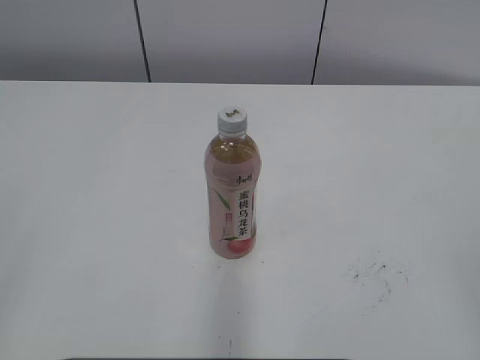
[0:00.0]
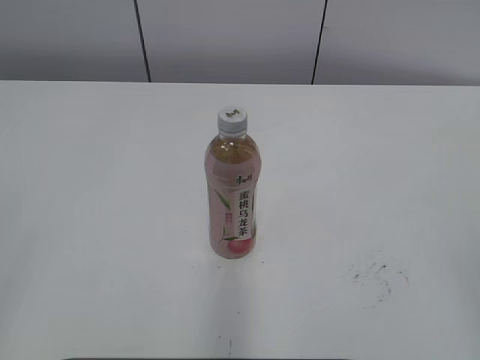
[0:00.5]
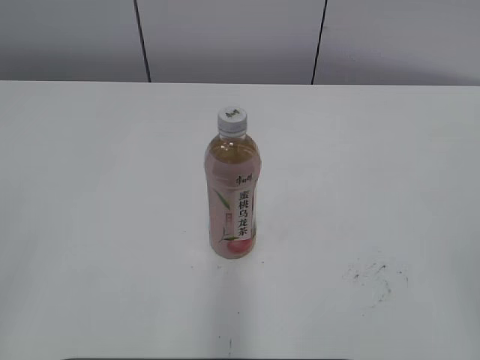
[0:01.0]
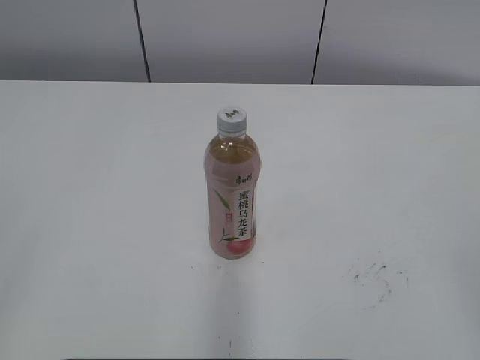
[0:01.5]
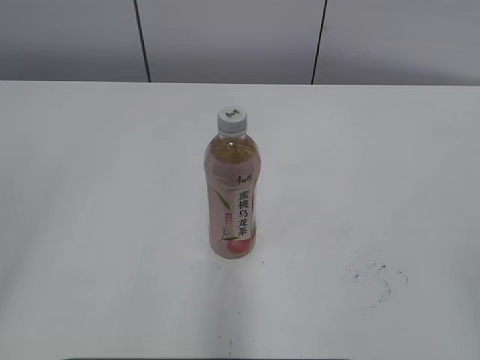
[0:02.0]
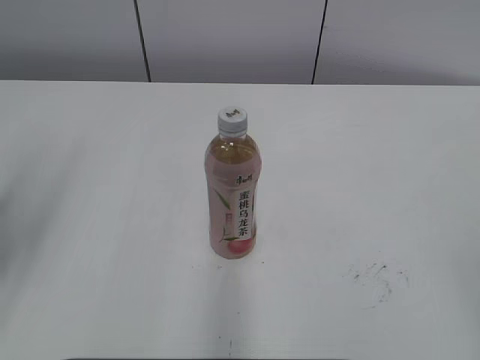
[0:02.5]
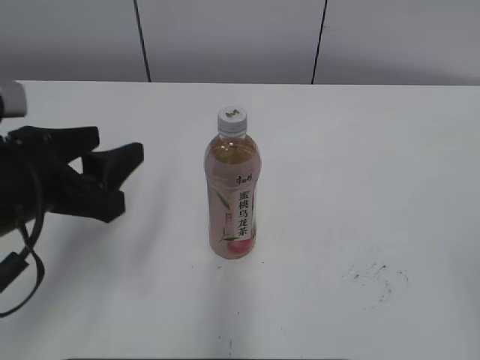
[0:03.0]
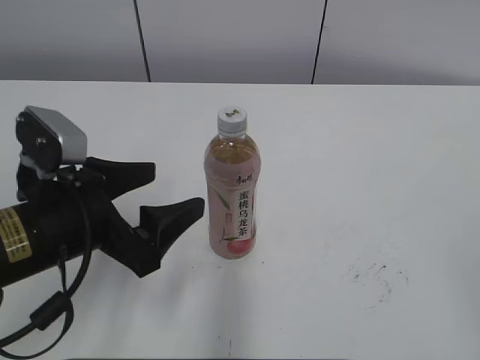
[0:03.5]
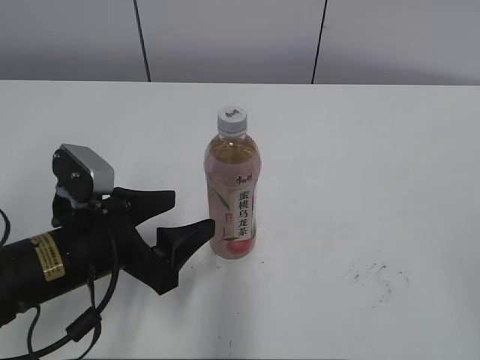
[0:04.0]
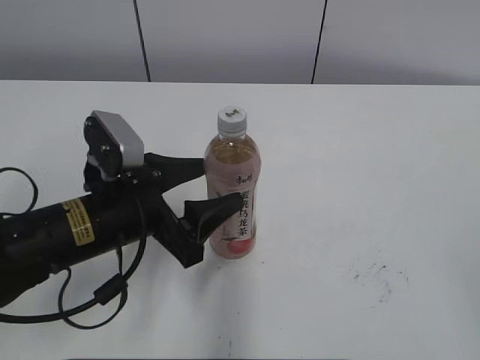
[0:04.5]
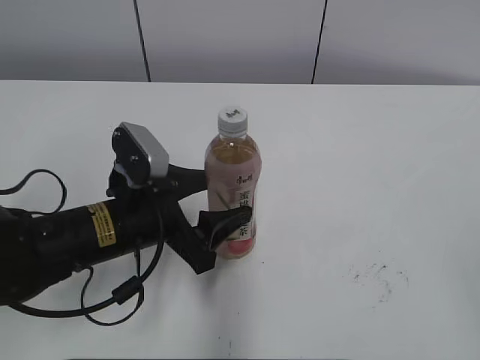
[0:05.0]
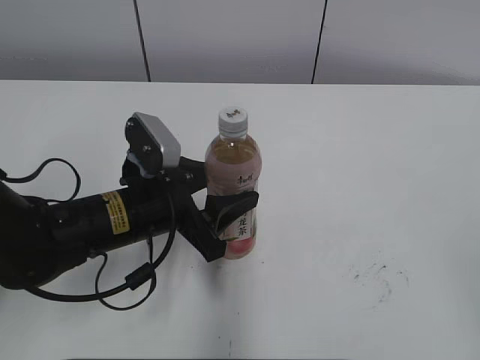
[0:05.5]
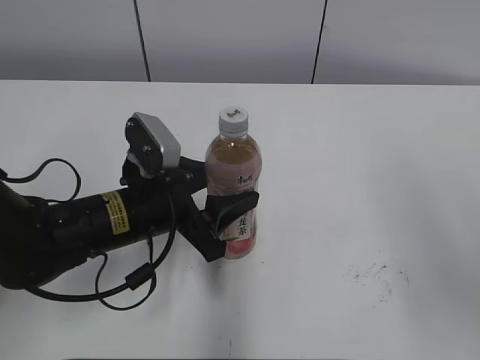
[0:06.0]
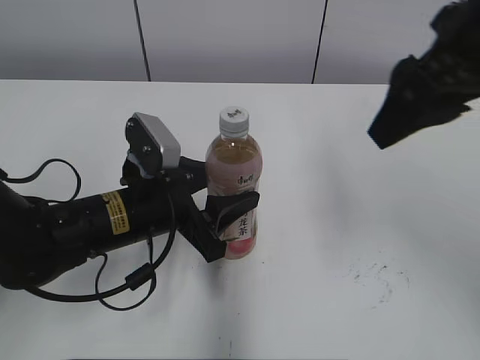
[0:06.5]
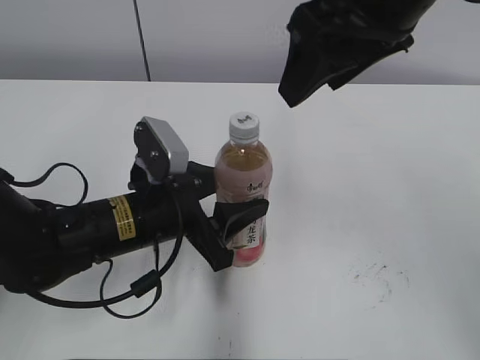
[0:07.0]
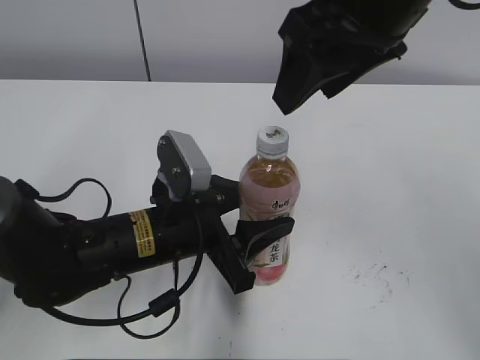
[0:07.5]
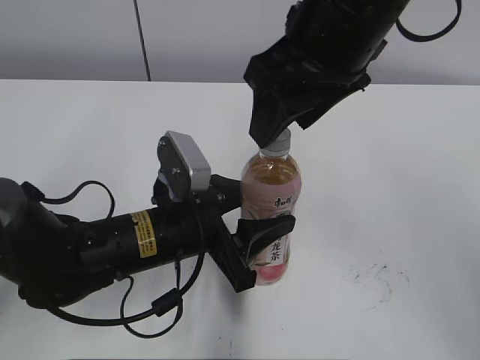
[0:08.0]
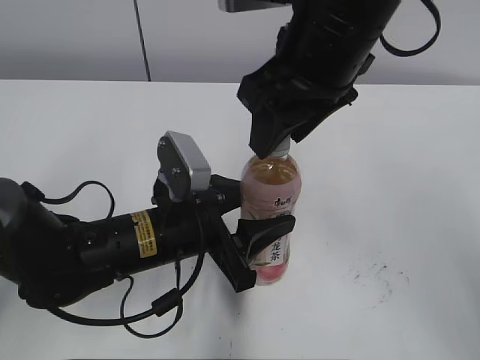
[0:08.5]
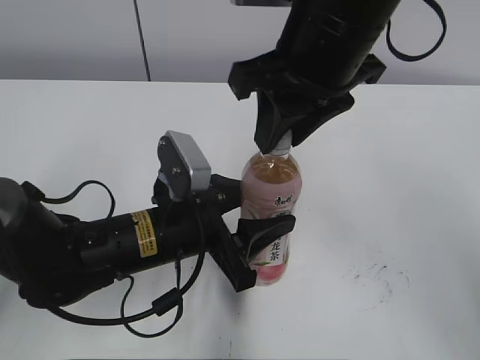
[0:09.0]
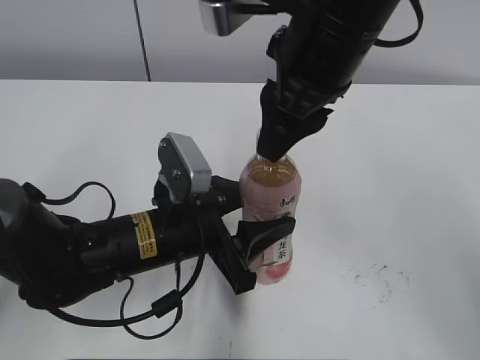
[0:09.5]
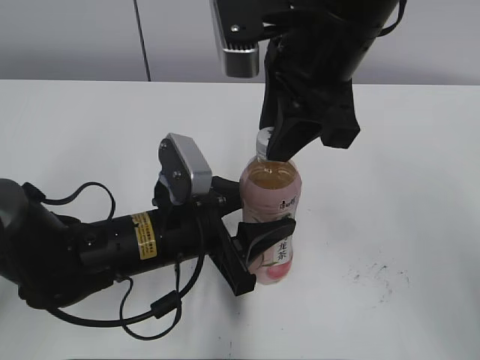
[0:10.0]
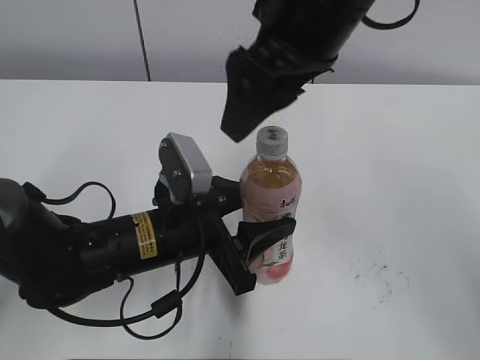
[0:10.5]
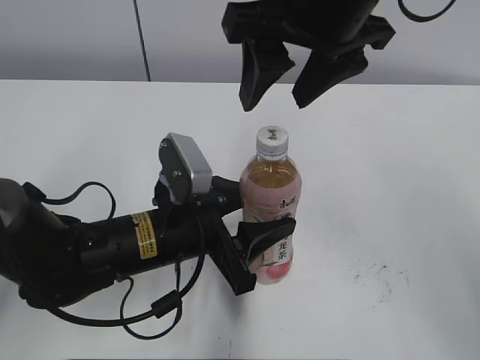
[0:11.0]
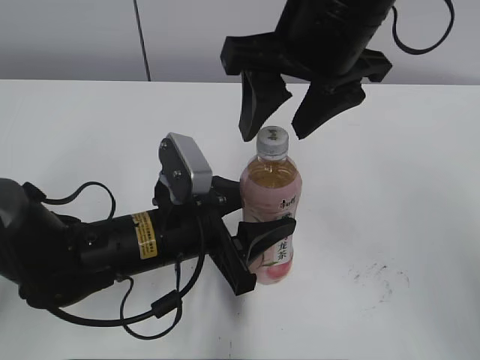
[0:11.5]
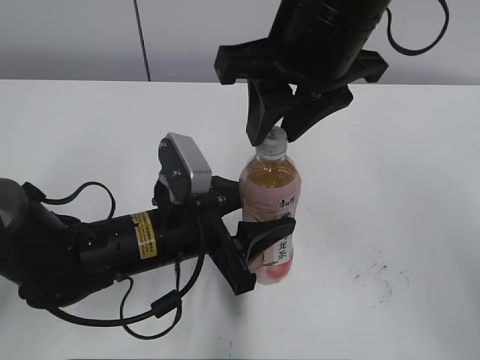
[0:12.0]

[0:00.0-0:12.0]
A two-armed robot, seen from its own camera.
Step, 0.0 to 6.5 s: Grab the Peach Oolong Tea with the left hand.
Step, 7.0 to 7.5 s: Move the Peach Oolong Tea from left to right.
2.0 to 4.0 s: The left gripper heads downward, forward and to the right, covering roughly 30 cm.
4.0 to 6.0 s: The right gripper shifts approximately 10 cm forward. The left gripper goes about 5 cm forward, and closes up.
6.0 to 8.0 s: The right gripper is displaced to the left and forward by about 25 cm.
8.0 to 10.0 s: The right gripper closes up.
10.0 to 12.0 s: The right gripper opens, then closes again.

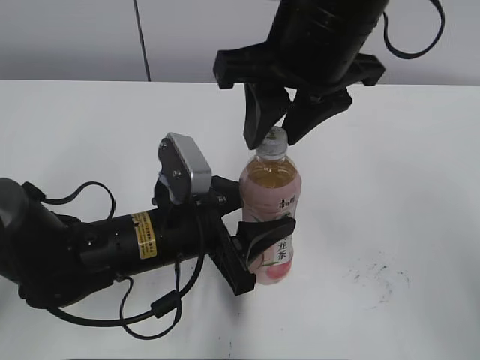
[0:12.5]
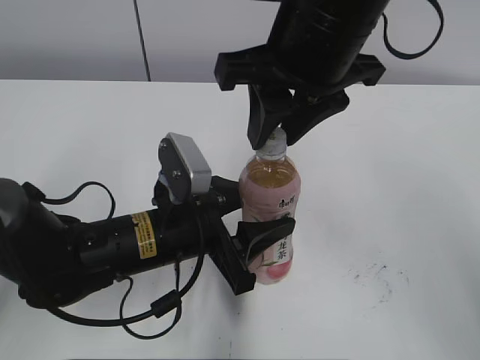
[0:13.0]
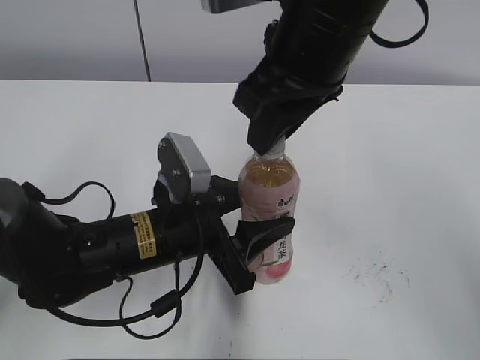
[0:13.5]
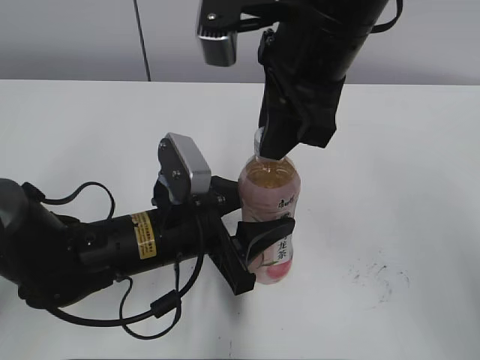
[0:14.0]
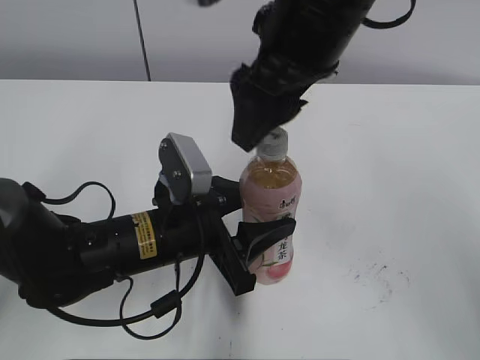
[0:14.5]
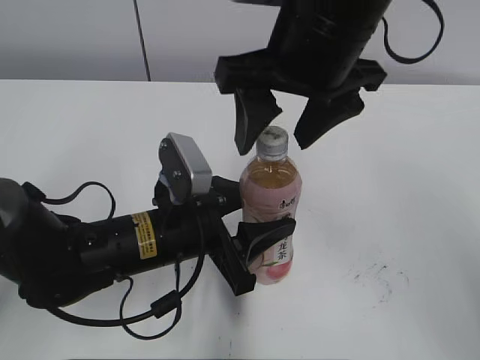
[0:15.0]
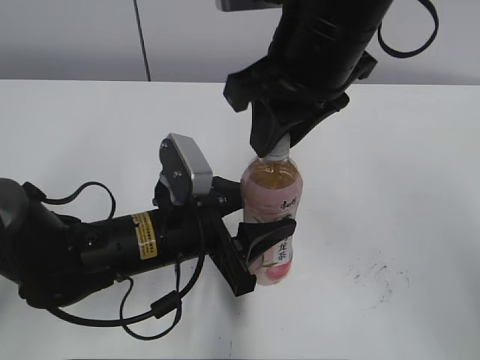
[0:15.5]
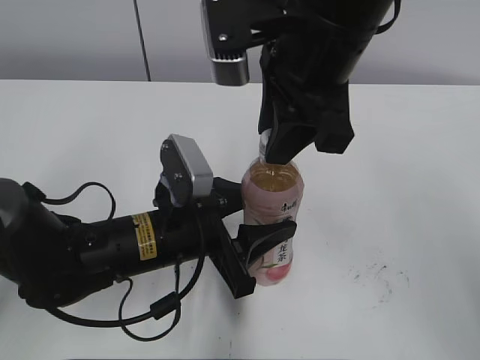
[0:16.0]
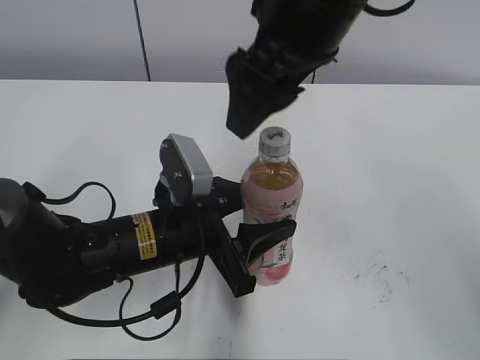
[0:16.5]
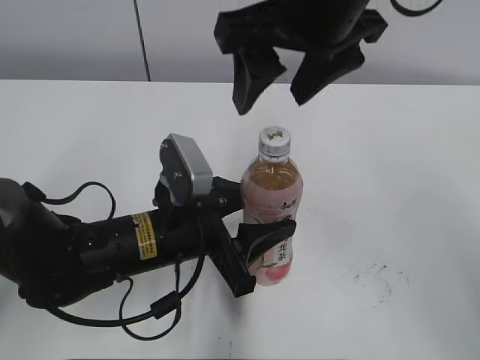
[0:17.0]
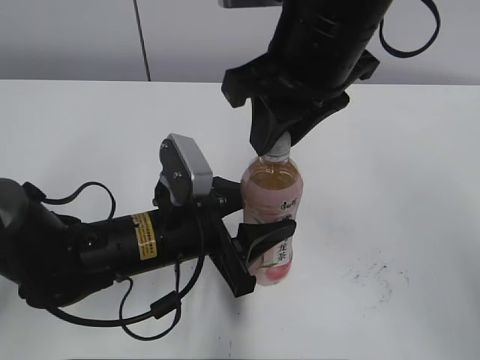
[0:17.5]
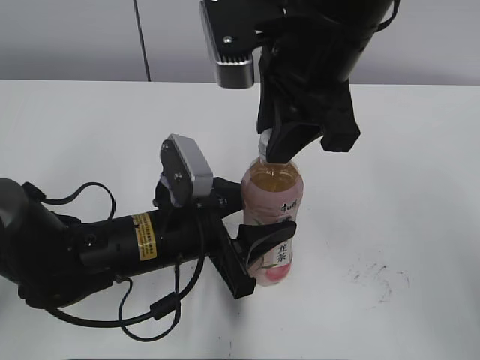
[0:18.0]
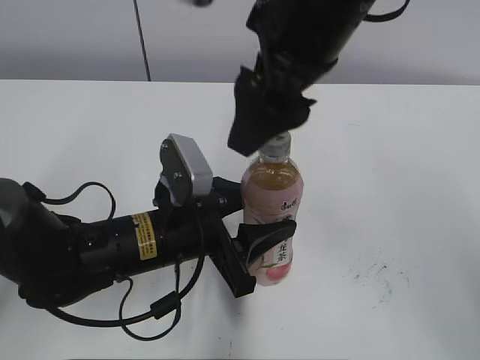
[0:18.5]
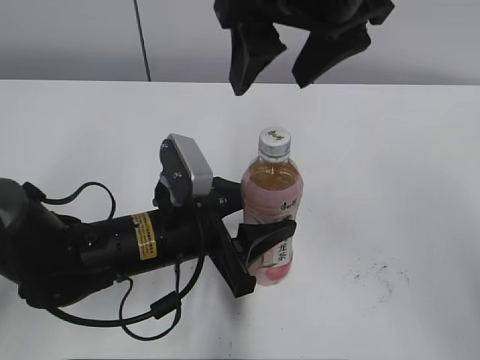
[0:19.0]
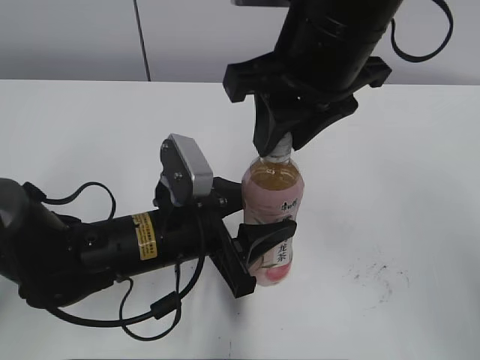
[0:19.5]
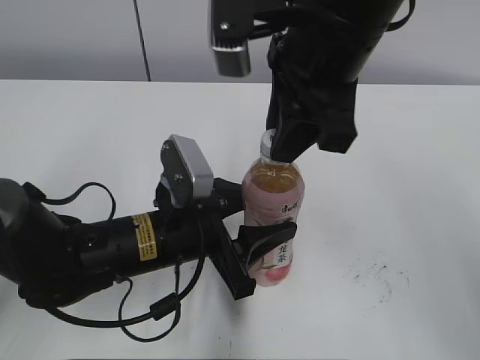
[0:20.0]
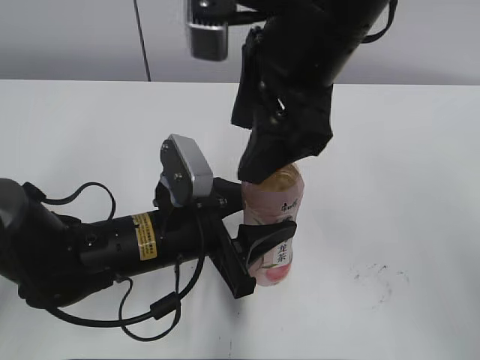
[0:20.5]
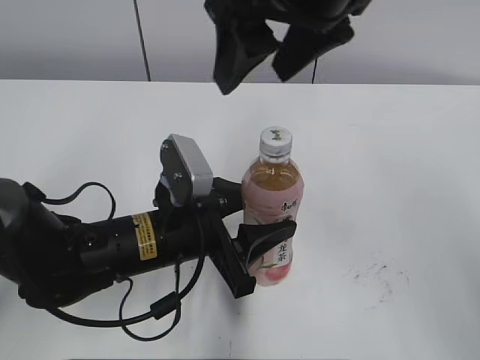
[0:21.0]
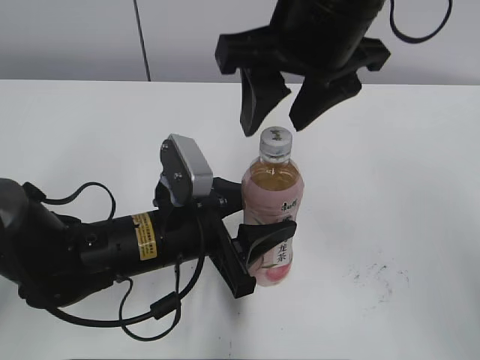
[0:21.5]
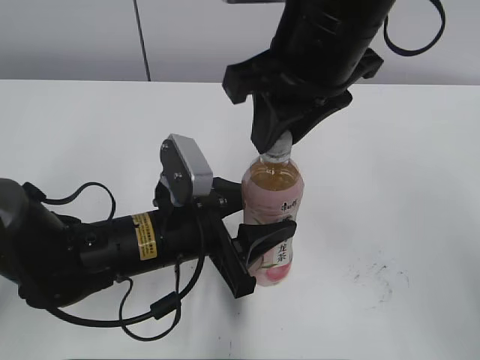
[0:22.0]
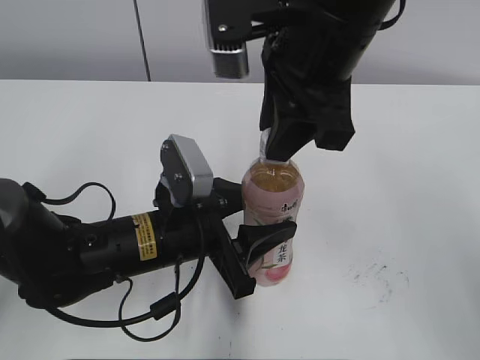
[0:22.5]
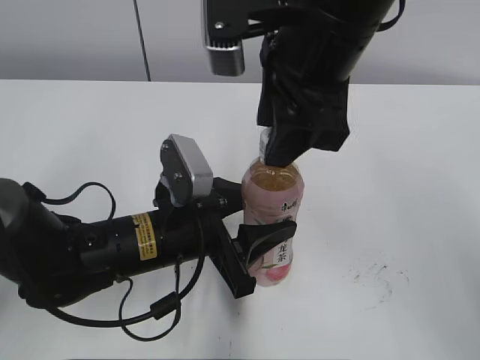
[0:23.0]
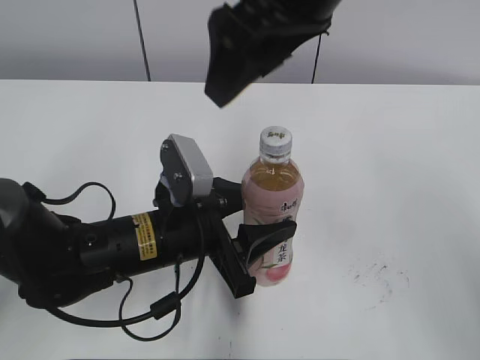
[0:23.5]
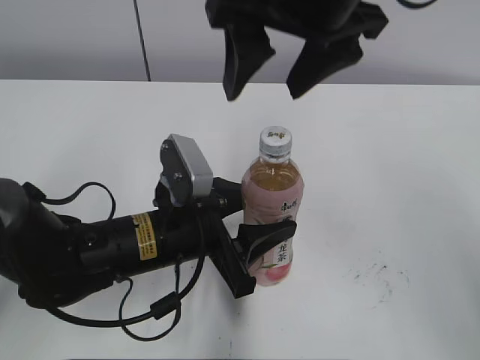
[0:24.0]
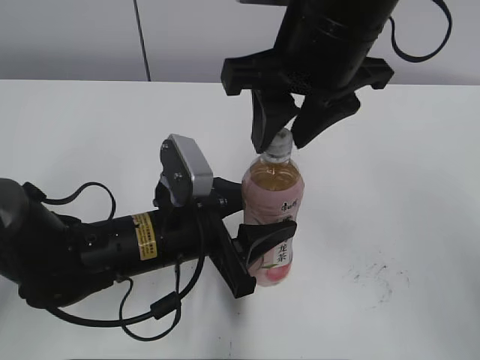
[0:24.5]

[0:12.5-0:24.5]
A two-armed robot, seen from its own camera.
12.5 to 14.5 s: The right gripper opens its fingers.
14.5 to 16.5 s: The right gripper closes, then reopens.
16.5 to 18.5 s: The right gripper closes, then opens again.
18.5 to 20.5 s: The right gripper closes and opens again.
20.5 to 22.5 s: The right gripper closes up.
22.5 to 24.5 s: The right gripper opens and closes again.

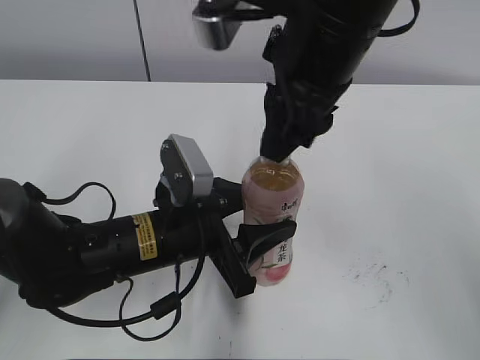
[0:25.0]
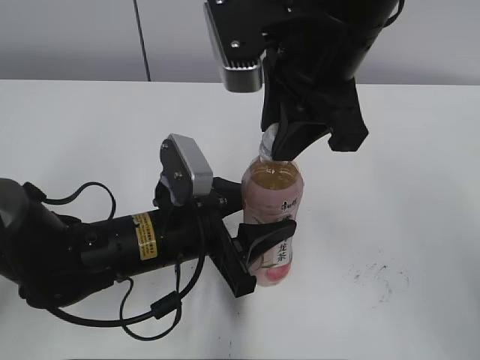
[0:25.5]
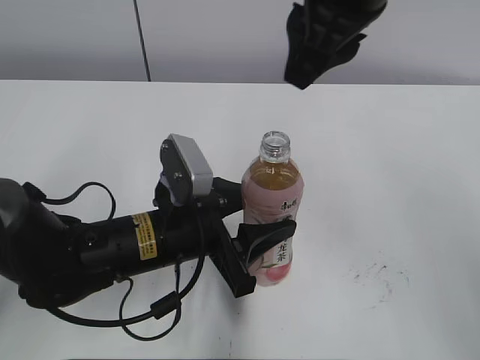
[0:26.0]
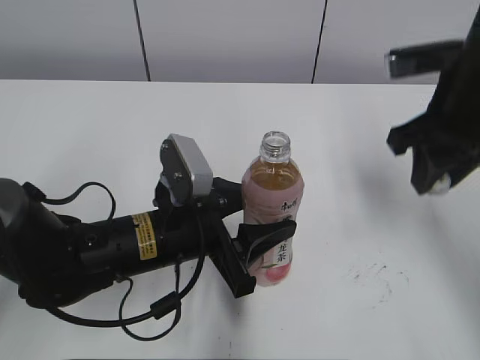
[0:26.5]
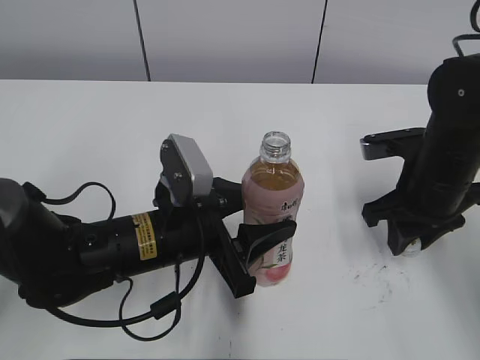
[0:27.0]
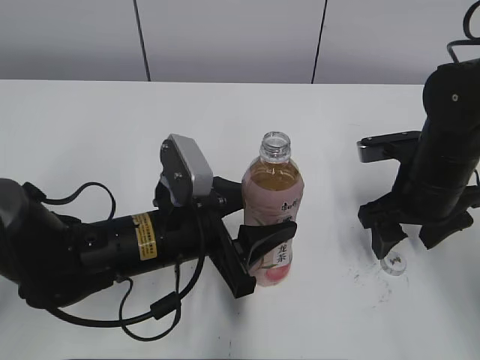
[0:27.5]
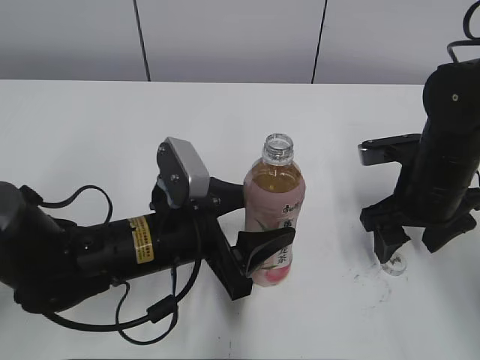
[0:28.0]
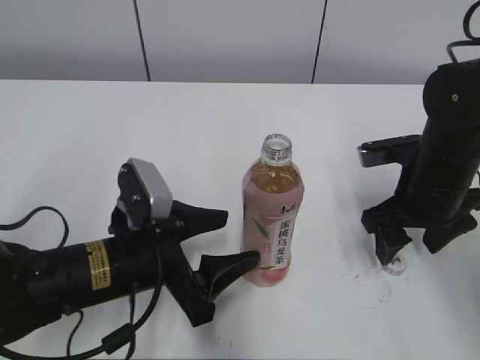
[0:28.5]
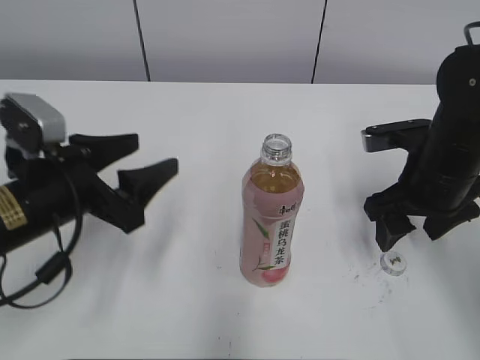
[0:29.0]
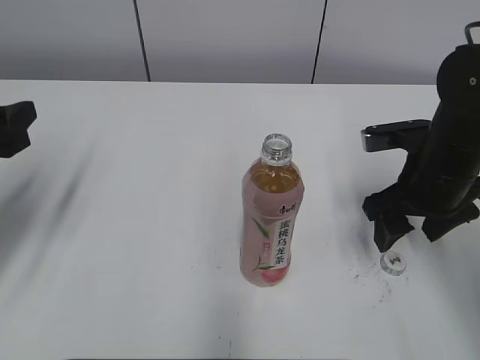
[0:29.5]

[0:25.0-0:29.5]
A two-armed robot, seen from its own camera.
Step, 26.0 to 27.0 s: Place the bottle cap on the right.
Step, 27.5 to 28.0 s: Place the Peach Oolong Tea with the left hand.
25.0 to 27.0 s: The right gripper travels downward and to the right by some 20 cm.
27.0 to 29.5 s: The left gripper moves to the left and upward, roughly 25 cm; the right gripper opens up.
